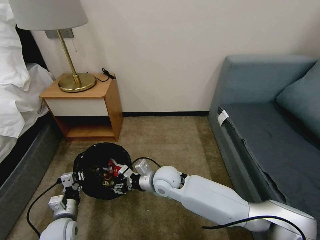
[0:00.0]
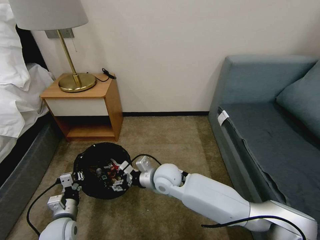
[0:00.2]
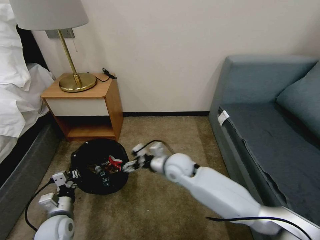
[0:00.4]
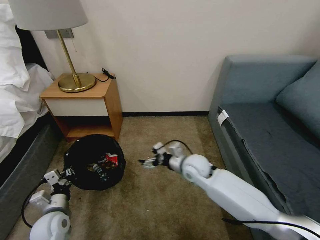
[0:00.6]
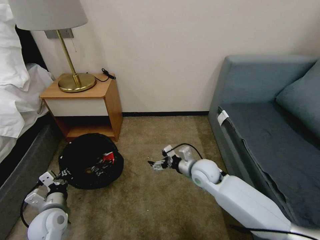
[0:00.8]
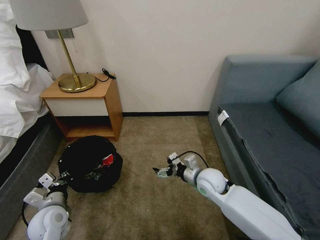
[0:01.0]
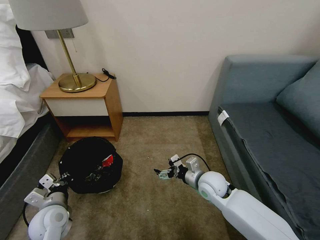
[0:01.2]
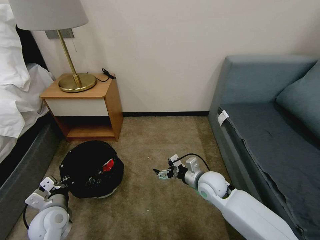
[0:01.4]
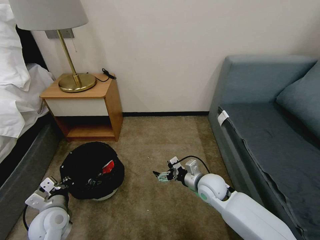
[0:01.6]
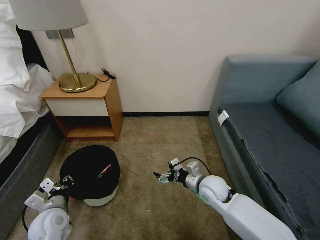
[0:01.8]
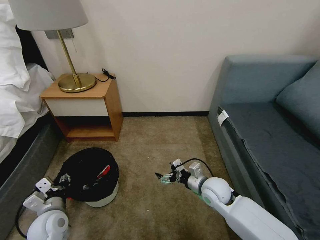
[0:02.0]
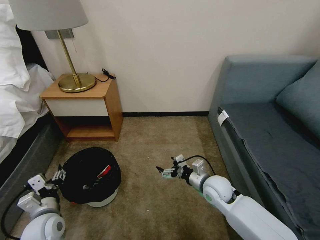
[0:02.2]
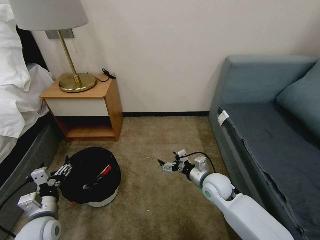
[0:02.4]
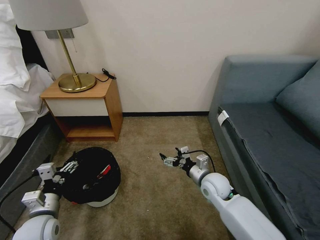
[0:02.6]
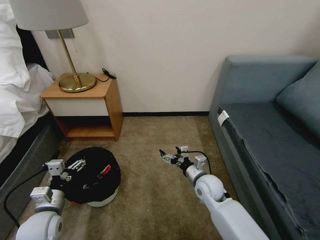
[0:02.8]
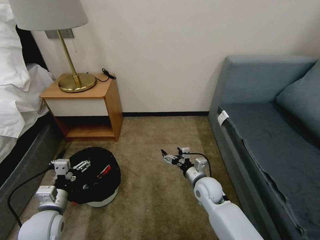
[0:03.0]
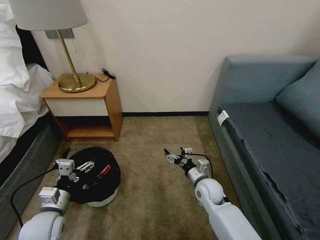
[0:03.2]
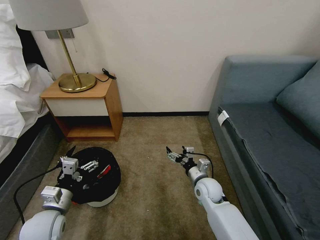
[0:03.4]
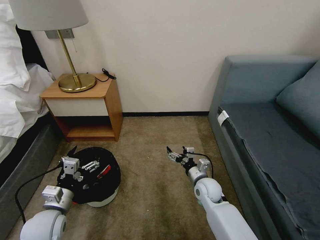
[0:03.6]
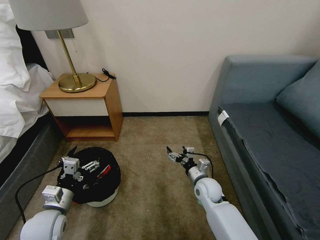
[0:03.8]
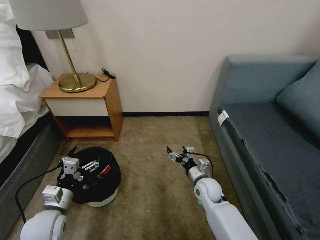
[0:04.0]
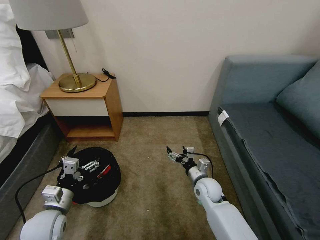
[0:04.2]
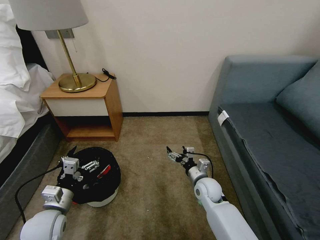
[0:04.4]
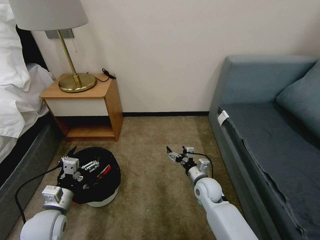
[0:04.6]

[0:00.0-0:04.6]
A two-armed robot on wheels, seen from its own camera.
Task of the whole recording: Pick up the trash bin, then pick up the garbage on the floor and place it into the trash bin.
0:00.0 to 0:01.6: The right gripper shifts approximately 15 cm to the right, and opens up; the left gripper travels upward by roughly 5 cm.
0:01.6 to 0:03.0: The left gripper opens.
0:03.0 to 0:04.6: The grippers stay close to where they were, moving slightly.

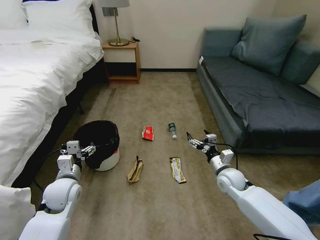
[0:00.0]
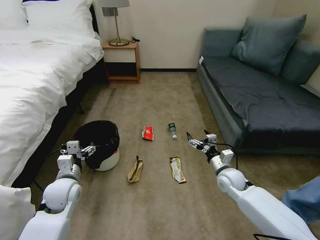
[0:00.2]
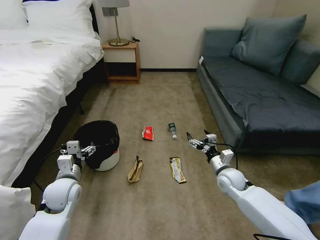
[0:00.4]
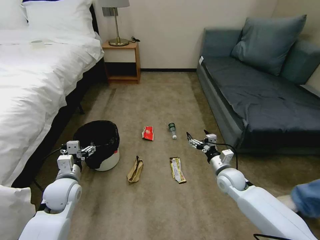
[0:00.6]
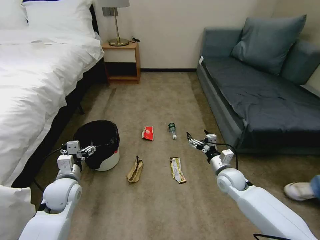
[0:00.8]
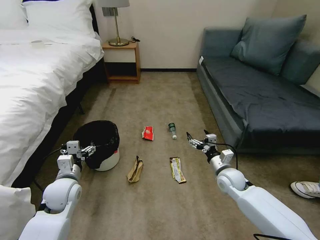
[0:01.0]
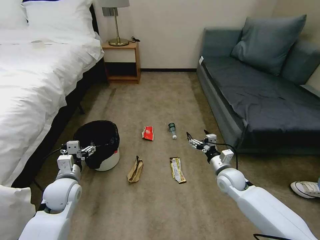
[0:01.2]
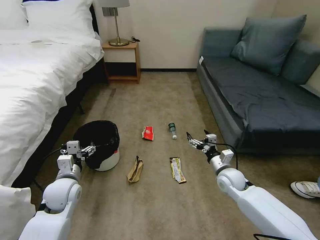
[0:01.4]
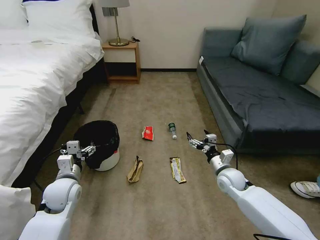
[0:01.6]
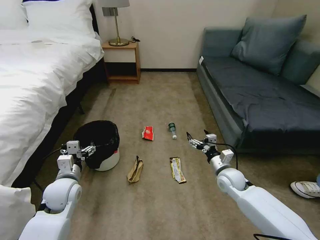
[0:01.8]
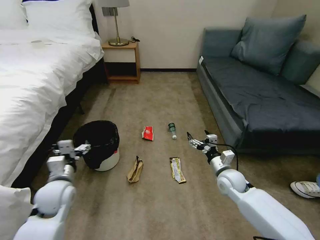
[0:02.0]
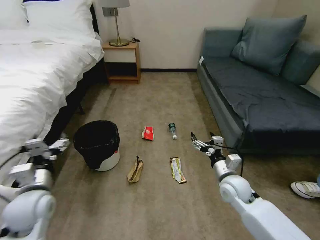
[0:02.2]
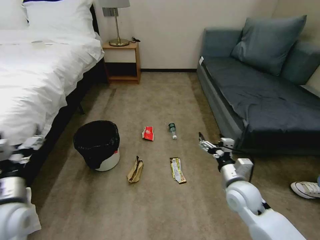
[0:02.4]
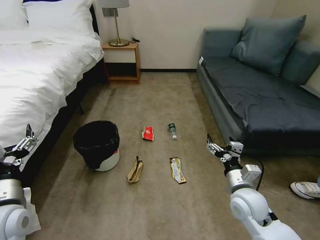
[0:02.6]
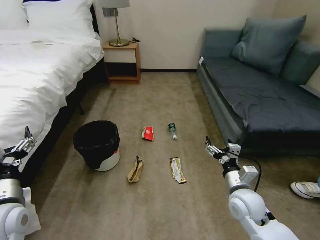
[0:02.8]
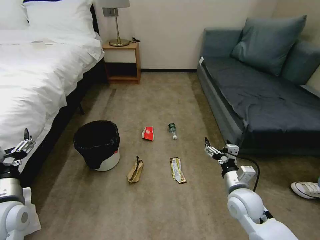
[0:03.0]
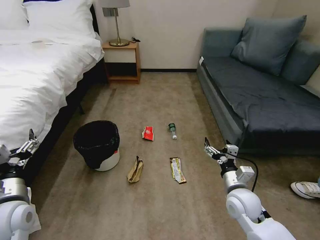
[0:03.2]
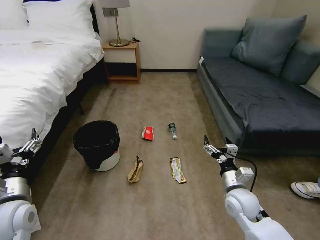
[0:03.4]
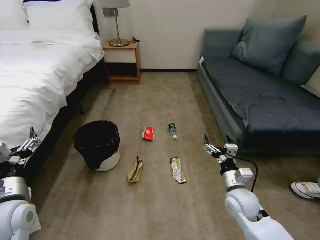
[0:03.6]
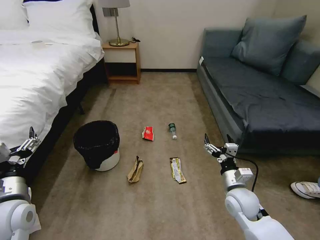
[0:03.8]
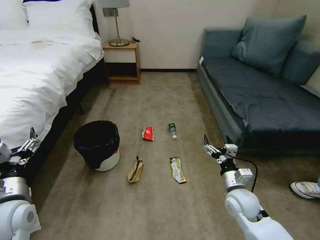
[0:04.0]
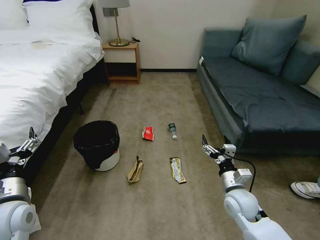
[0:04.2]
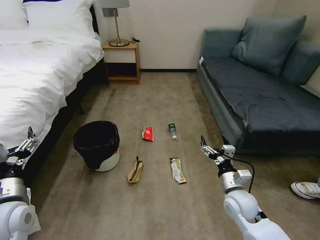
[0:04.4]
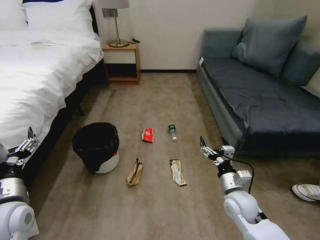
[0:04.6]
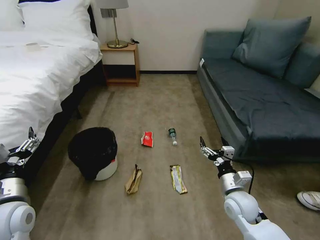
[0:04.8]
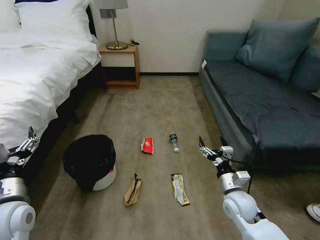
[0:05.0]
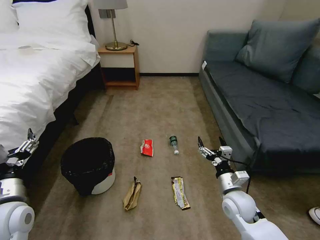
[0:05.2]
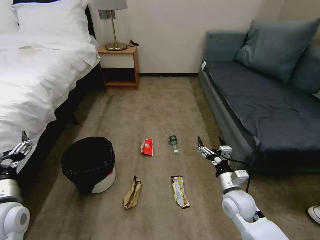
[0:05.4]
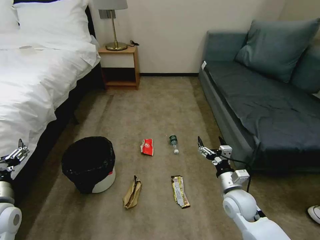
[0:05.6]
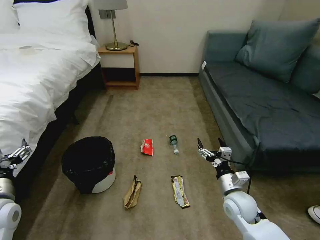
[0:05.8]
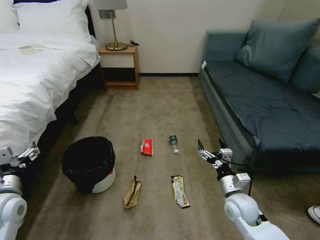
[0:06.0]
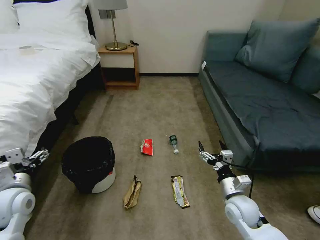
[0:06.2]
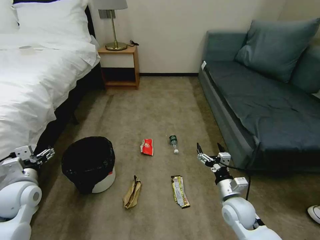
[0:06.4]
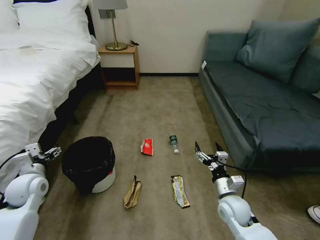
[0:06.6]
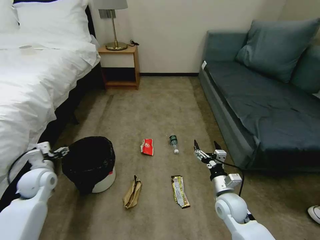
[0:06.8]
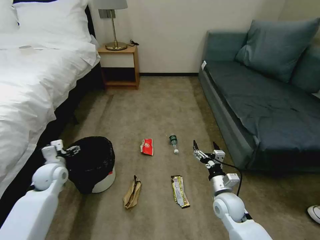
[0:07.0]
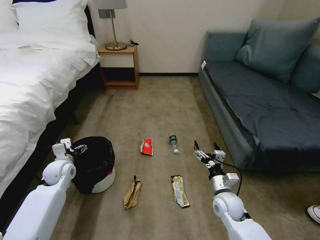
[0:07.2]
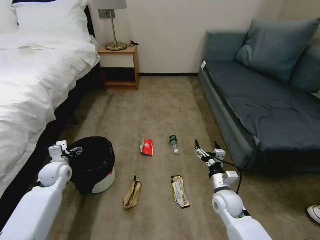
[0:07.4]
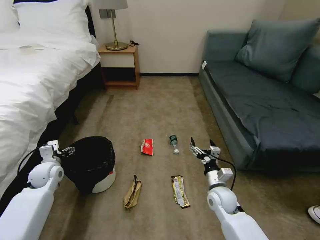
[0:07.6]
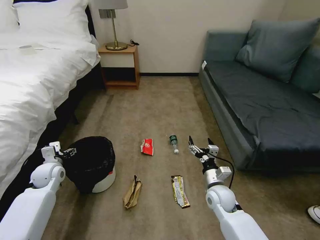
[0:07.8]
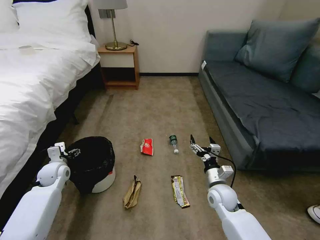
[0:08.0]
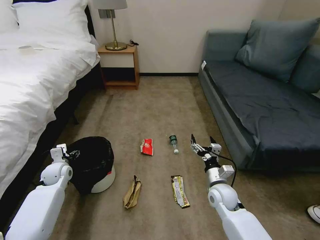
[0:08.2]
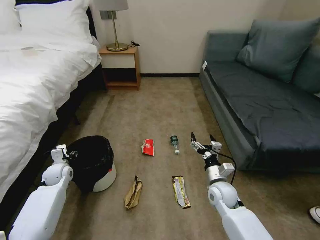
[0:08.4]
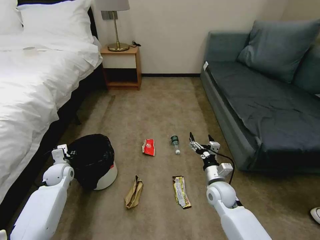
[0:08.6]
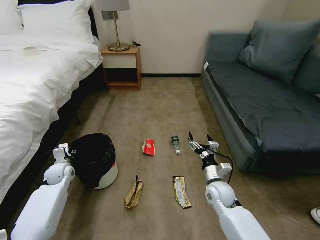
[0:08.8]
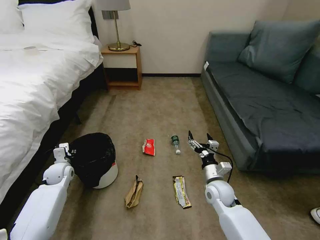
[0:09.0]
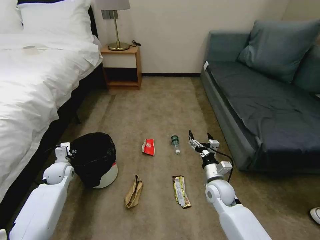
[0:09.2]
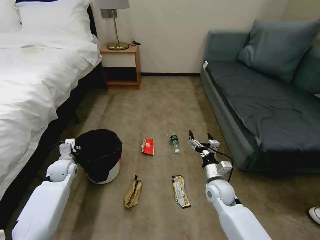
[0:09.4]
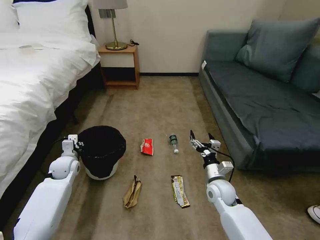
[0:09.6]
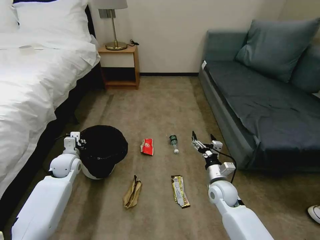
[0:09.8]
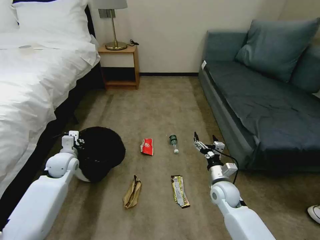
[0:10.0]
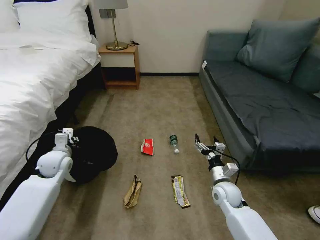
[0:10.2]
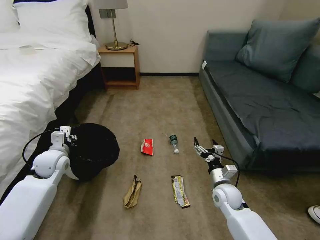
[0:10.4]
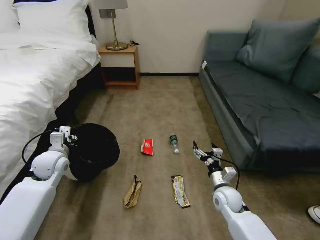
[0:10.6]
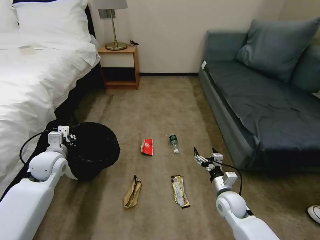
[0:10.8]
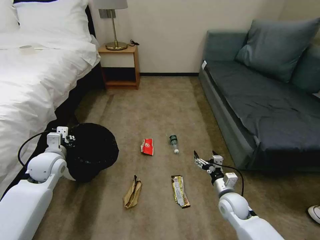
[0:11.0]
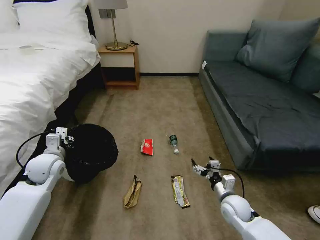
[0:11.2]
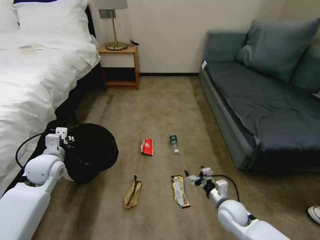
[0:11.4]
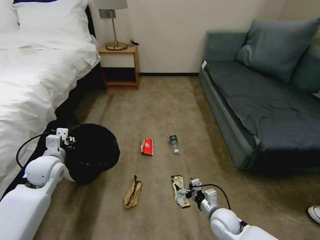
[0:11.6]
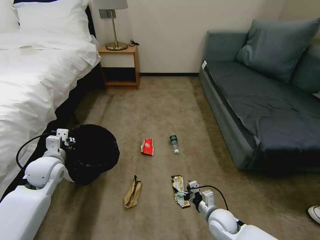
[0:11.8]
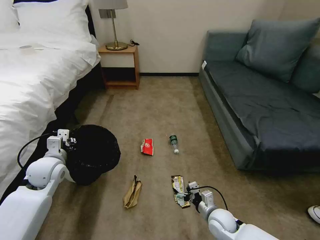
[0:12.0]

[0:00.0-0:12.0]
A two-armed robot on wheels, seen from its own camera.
Task of the whole recording: Pick up the trash bin, then pick up the garbage on the floor and place it into the trash bin.
0:01.6 to 0:03.0: The right gripper shifts roughly 10 cm backward and upward. The left gripper moves backward, to the left and upward, approximately 15 cm.
0:03.0 to 0:04.4: The grippers stay close to where they were, moving slightly.
0:06.0 to 0:07.6: The left gripper is displaced forward and downward by approximately 20 cm. Meanwhile the right gripper changes place by approximately 5 cm.
0:07.6 to 0:09.0: The left gripper goes about 5 cm downward, and closes up.
0:09.0 to 0:10.4: The left gripper heads upward, covering about 10 cm.
0:10.4 to 0:12.0: The right gripper goes some 10 cm backward and downward.

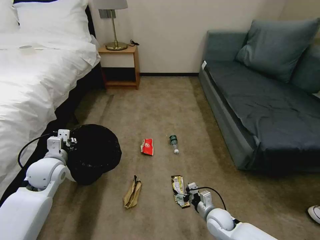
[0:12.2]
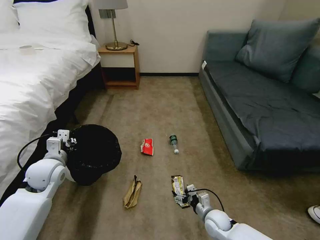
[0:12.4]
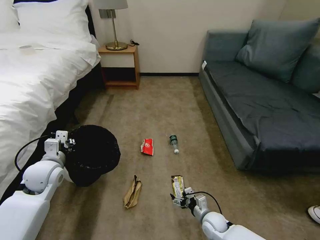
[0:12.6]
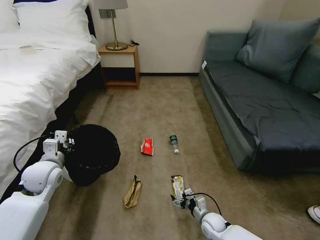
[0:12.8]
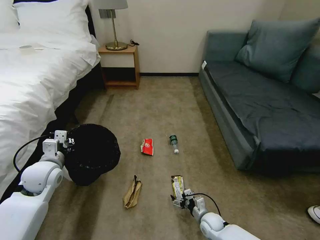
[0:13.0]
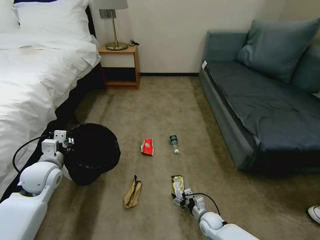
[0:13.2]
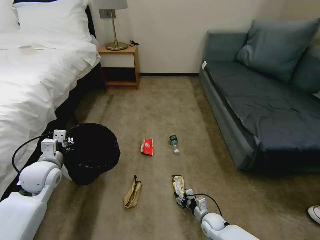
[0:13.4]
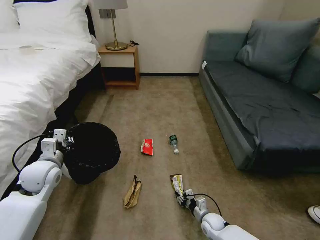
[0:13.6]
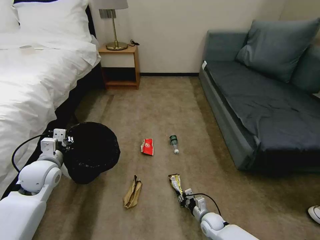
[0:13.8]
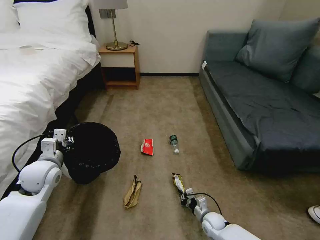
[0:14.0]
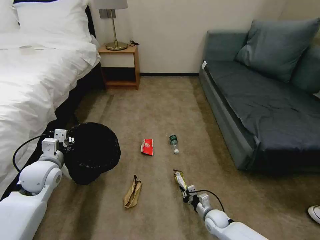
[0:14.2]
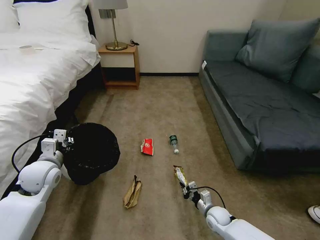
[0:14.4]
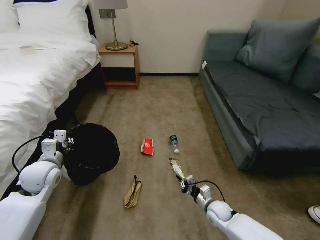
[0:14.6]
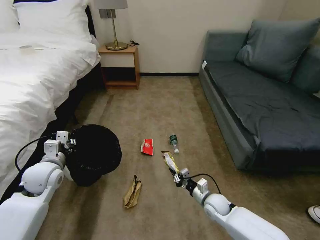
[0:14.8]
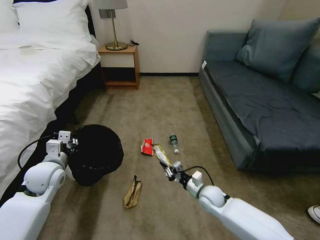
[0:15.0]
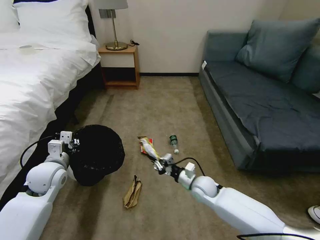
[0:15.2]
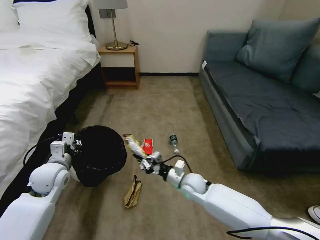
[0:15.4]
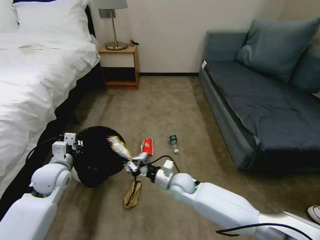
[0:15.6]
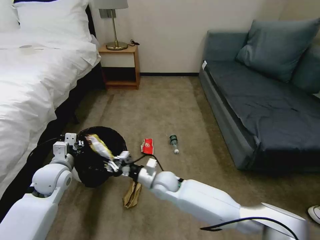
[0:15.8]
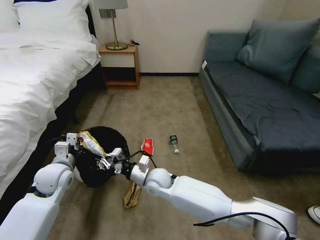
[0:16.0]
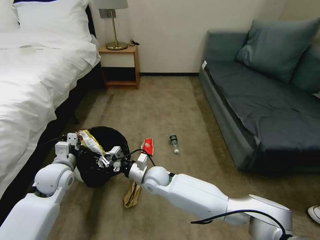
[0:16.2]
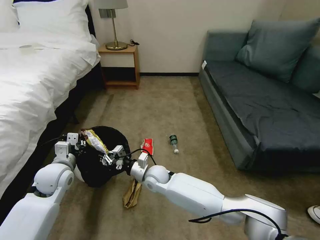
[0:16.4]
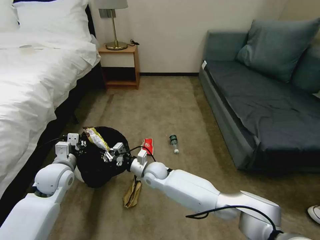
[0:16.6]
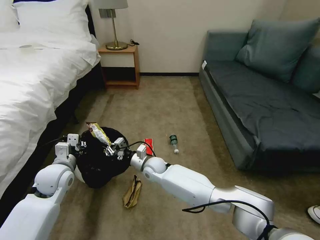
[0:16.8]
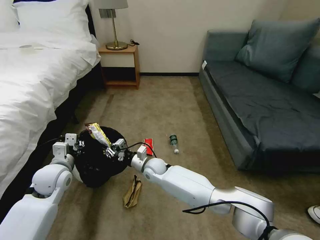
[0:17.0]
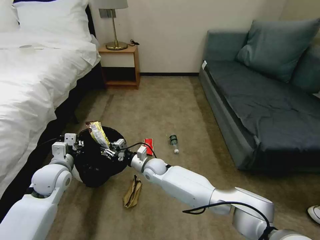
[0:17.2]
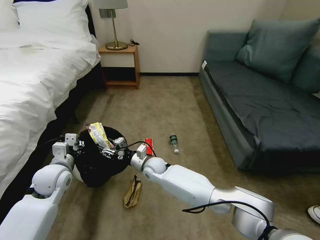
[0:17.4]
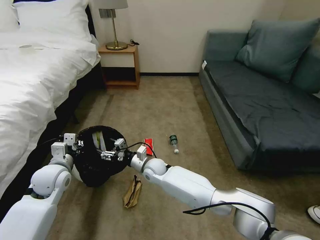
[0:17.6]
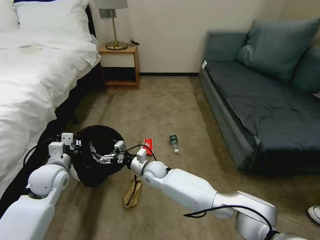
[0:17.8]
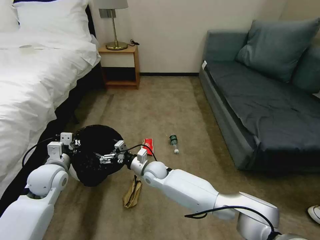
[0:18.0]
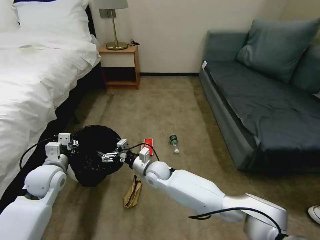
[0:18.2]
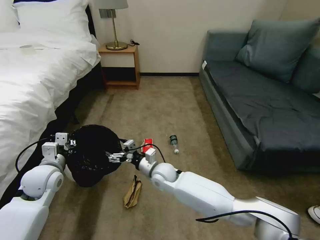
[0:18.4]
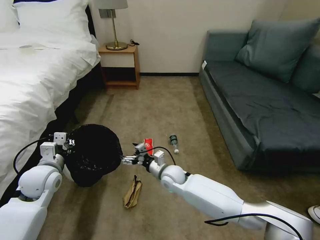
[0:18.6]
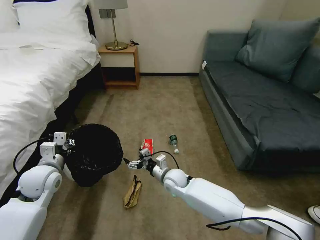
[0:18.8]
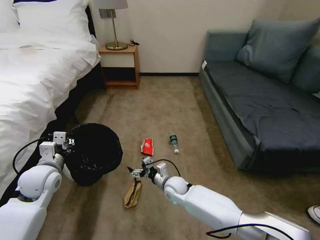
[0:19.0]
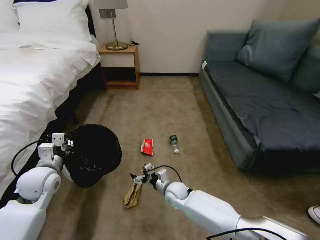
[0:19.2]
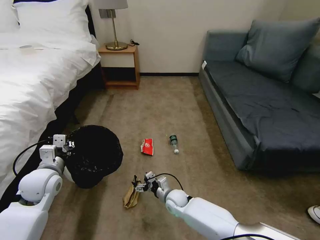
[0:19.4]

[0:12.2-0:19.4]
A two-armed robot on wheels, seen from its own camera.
Task of the whole recording: Pick up the trash bin, then pick up the garbage on the floor and place it into the trash bin.
0:12.2 to 0:13.6: The right gripper is displaced downward by approximately 10 cm, and closes.
0:13.6 to 0:15.0: The right gripper shifts approximately 15 cm upward and forward, and closes up.
0:15.0 to 0:16.6: The right gripper heads to the left, covering about 25 cm.
0:16.6 to 0:18.0: The right gripper opens its fingers.
0:18.0 to 0:19.4: The right gripper heads downward, to the right and backward, covering some 15 cm.
